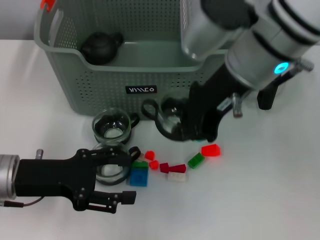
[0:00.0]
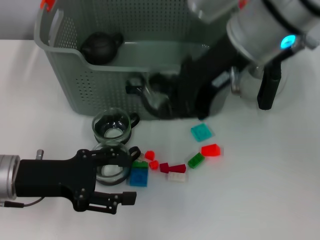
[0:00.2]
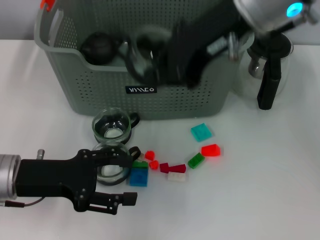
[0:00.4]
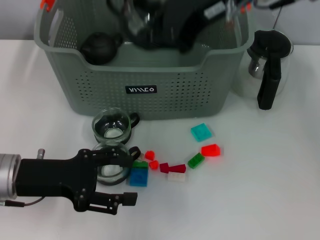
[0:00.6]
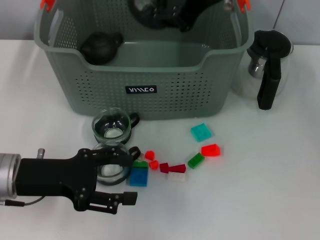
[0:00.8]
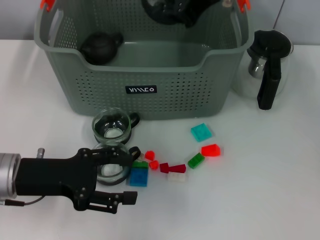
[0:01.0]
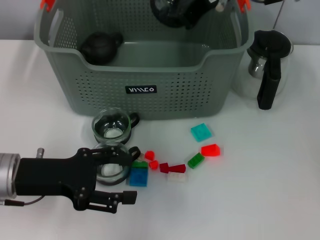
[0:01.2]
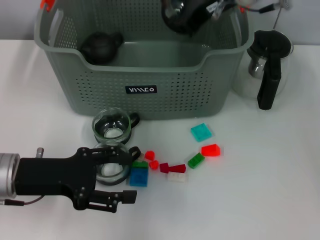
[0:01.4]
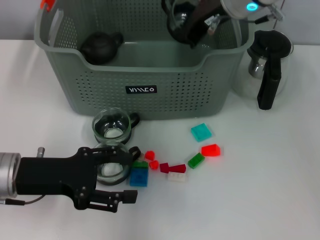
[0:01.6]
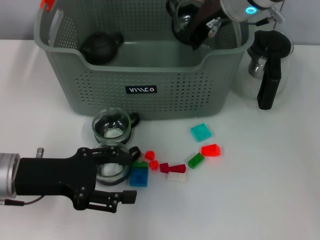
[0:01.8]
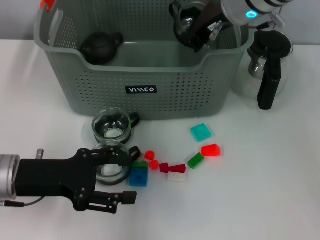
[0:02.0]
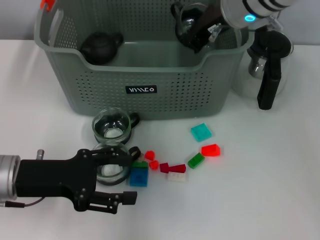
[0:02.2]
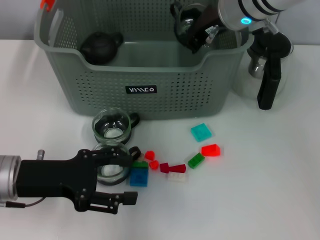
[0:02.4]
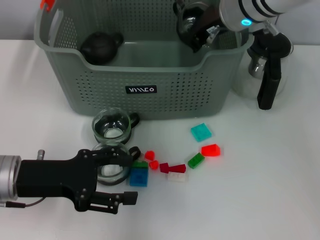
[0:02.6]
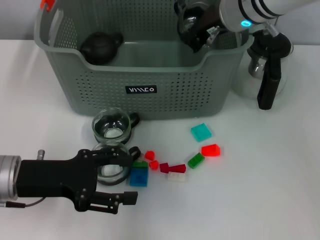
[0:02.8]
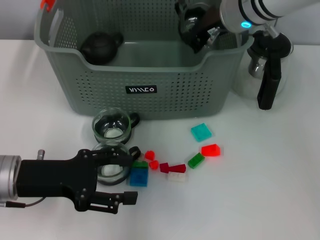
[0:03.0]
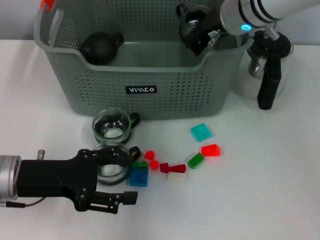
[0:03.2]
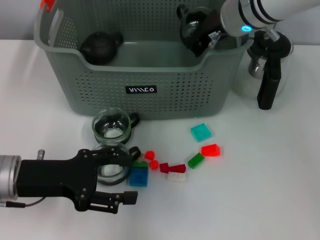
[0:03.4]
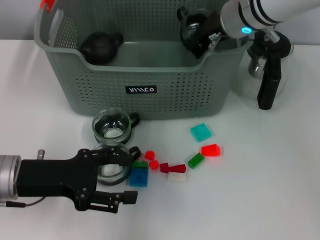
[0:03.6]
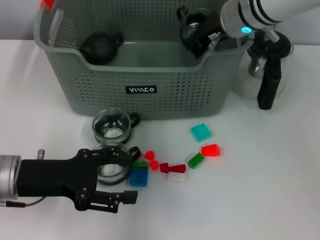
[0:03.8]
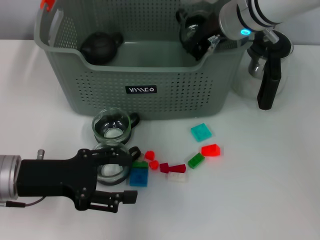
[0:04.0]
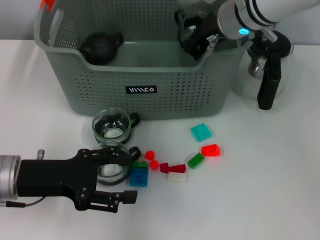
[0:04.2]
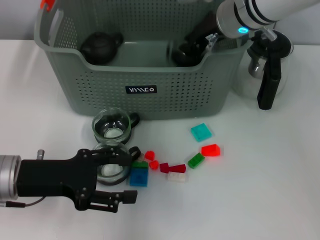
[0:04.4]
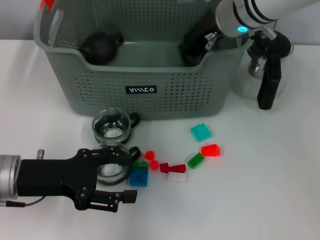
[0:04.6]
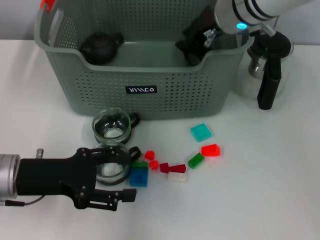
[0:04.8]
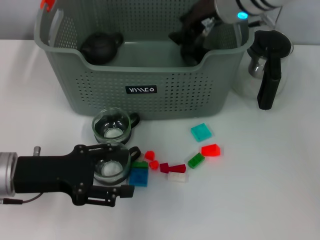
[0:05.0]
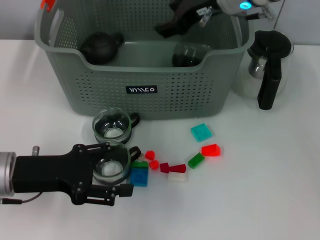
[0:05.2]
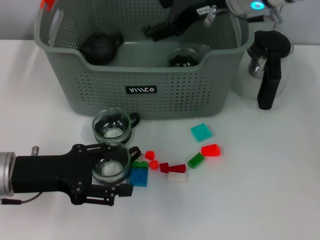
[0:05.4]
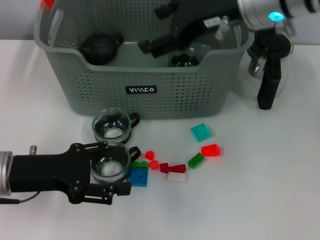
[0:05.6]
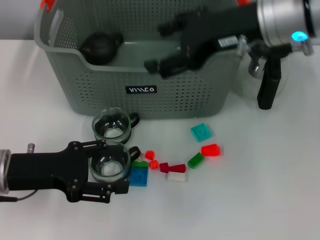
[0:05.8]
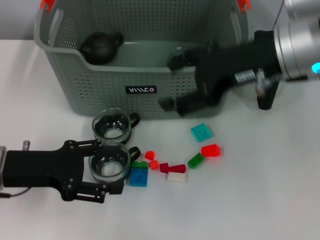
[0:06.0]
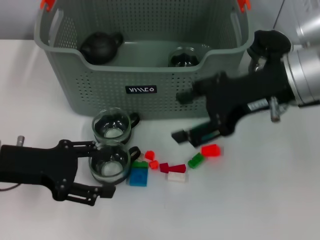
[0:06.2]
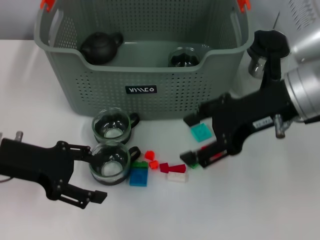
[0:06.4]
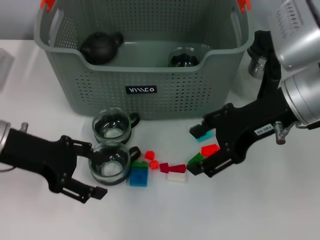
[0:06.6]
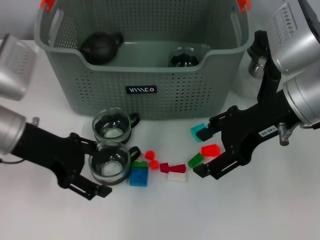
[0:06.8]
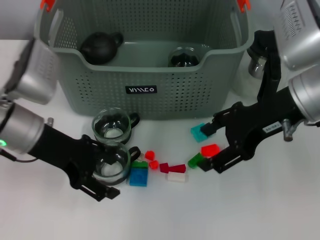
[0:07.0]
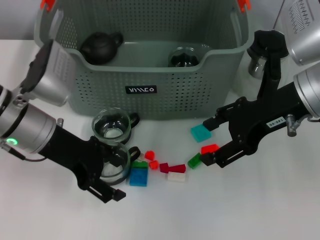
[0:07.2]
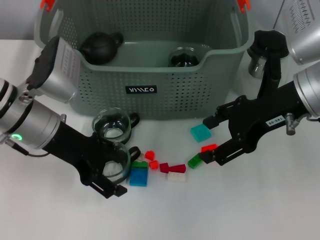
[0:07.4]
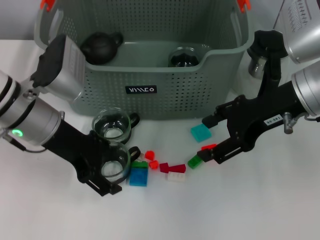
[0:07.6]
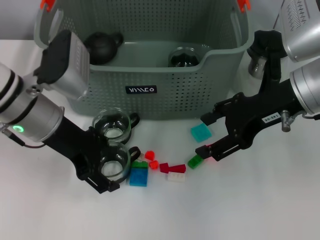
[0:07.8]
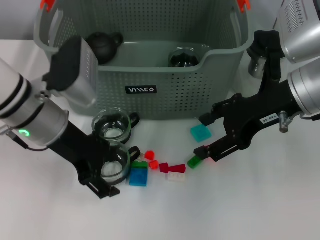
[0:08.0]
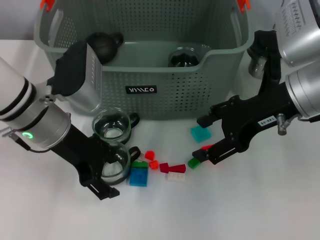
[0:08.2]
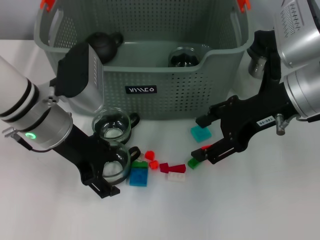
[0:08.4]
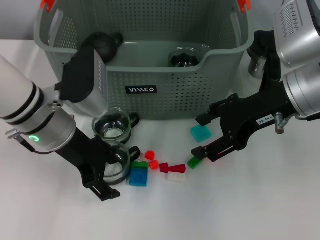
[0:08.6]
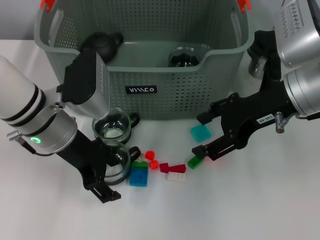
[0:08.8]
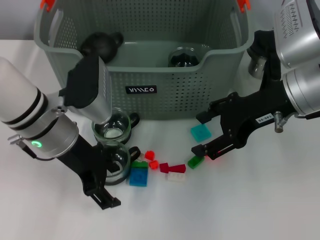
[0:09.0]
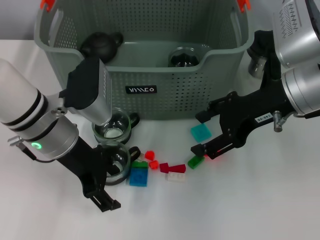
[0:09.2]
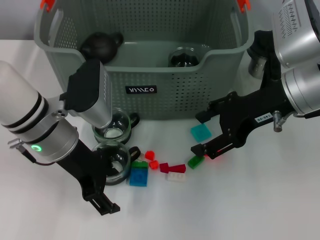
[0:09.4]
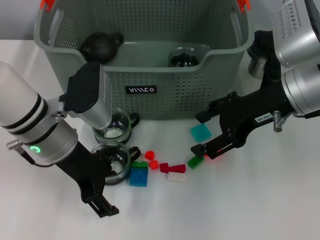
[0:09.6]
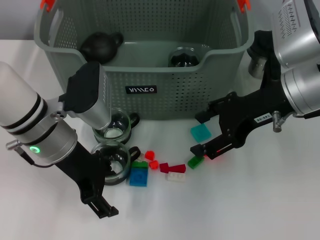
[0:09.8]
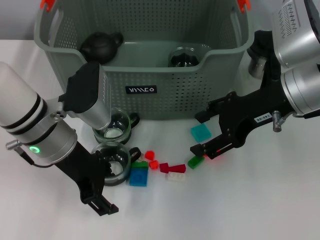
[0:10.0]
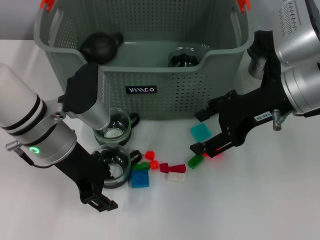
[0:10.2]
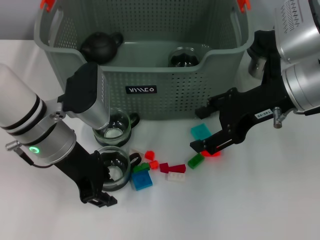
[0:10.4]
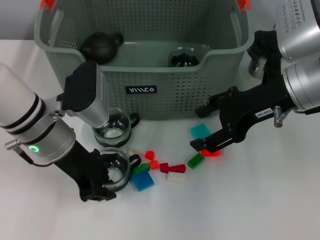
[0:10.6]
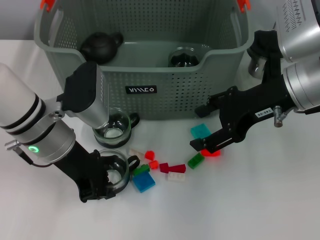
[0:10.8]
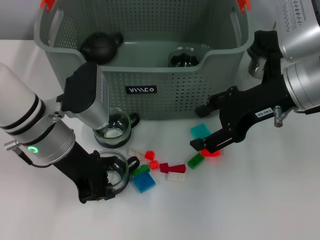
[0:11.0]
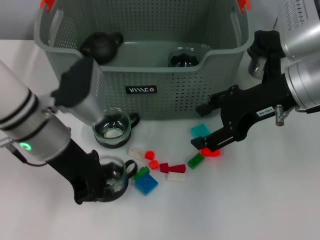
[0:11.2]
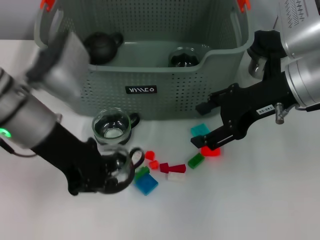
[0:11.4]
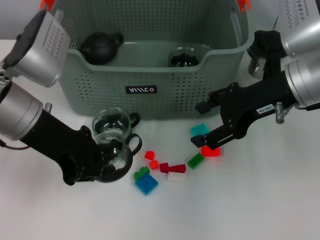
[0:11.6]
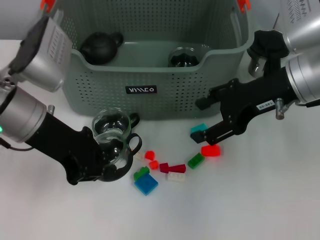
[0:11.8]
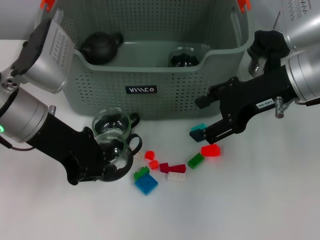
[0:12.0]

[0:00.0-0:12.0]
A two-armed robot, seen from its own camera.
Task of the whole recording: pick up the teacup on the table and place it into the storage bin, pick up the block on the table and place it into the storage bin.
Step, 0:00.0 to 0:05.6: Place the cup in the storage box with right gripper.
Step, 0:05.8 to 0:10.8: Grasp the cup with left gripper.
0:00.0 to 0:01.6: The right gripper moves forward, about 10 cm.
0:01.6 to 0:03.0: The grippers make only small movements.
0:03.0 to 0:04.4: The two grippers keep their place.
0:04.4 to 0:06.0: The right gripper moves backward and to the right, some 10 cm, and opens its fingers.
0:06.0 to 0:07.6: The left gripper is displaced forward and to the right by roughly 10 cm.
0:07.6 to 0:09.0: The grippers make only small movements.
0:09.0 to 0:10.4: Both grippers stay put.
0:10.4 to 0:12.0: The left gripper is displaced upward by some 5 cm, and closes up.

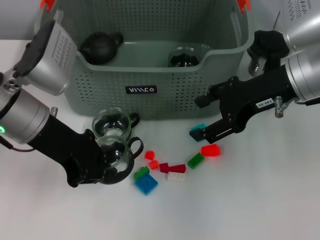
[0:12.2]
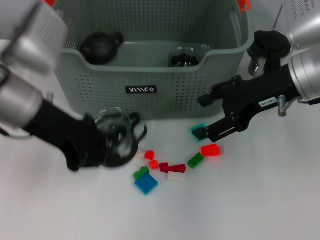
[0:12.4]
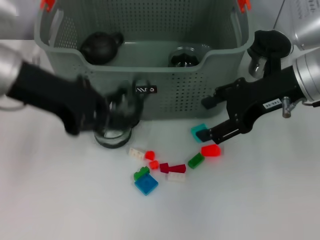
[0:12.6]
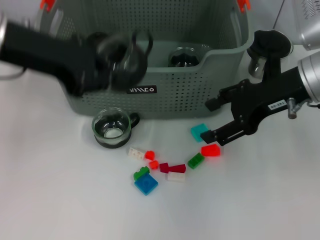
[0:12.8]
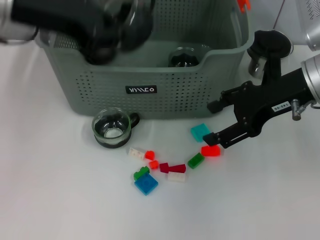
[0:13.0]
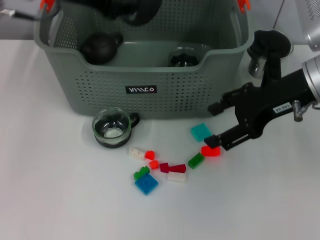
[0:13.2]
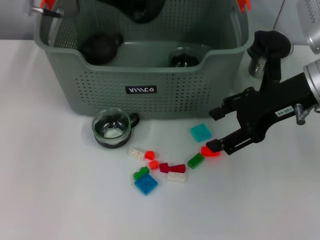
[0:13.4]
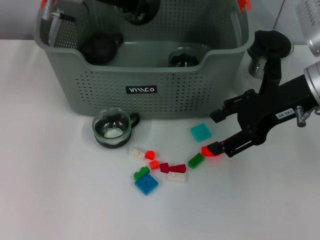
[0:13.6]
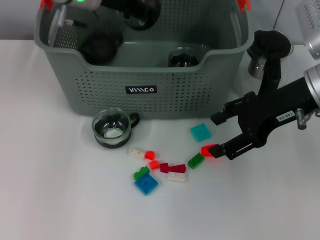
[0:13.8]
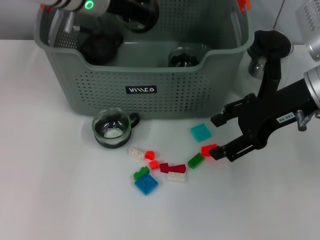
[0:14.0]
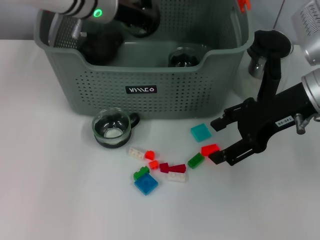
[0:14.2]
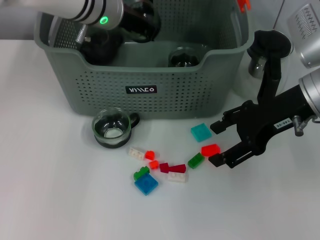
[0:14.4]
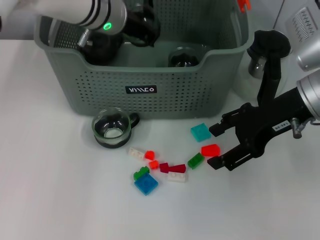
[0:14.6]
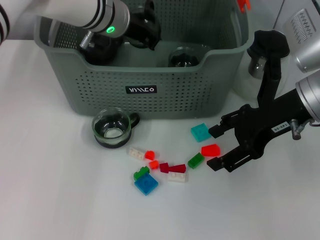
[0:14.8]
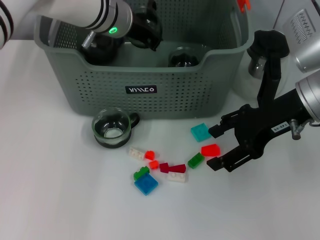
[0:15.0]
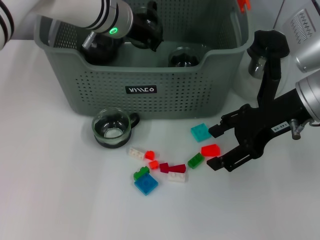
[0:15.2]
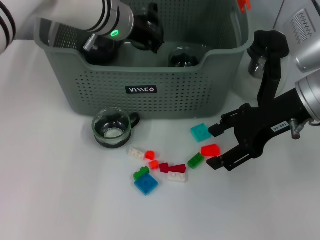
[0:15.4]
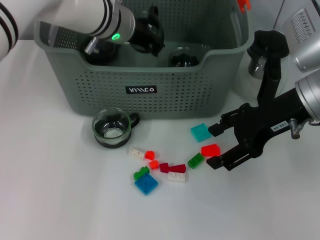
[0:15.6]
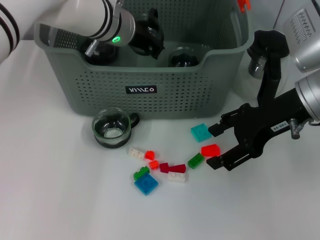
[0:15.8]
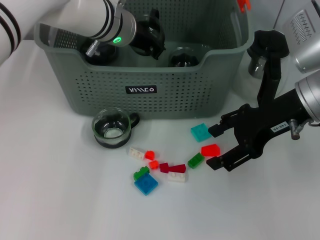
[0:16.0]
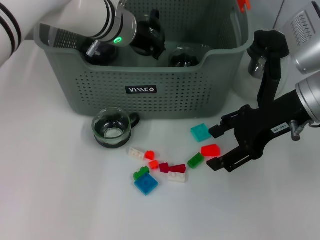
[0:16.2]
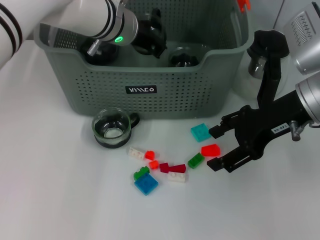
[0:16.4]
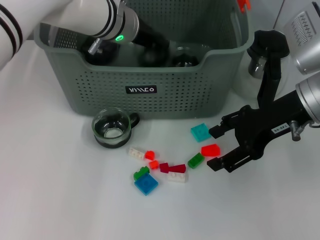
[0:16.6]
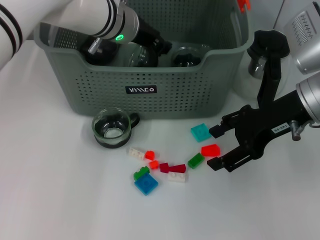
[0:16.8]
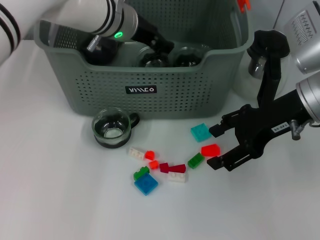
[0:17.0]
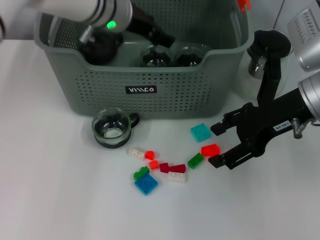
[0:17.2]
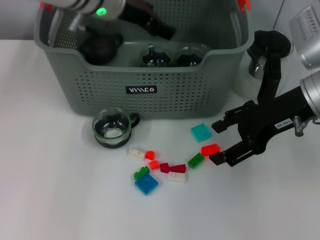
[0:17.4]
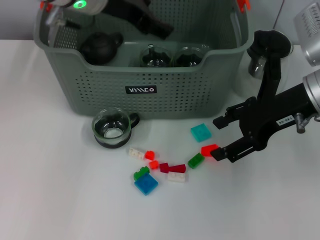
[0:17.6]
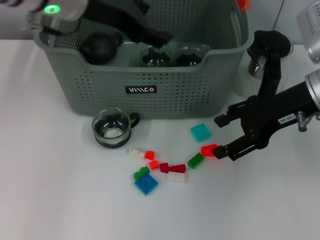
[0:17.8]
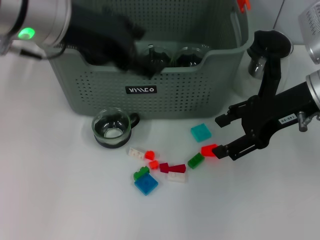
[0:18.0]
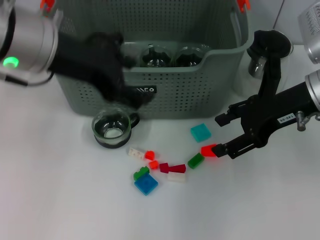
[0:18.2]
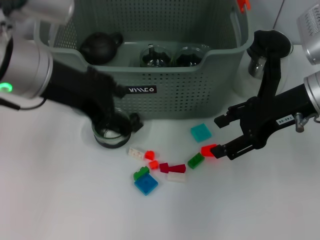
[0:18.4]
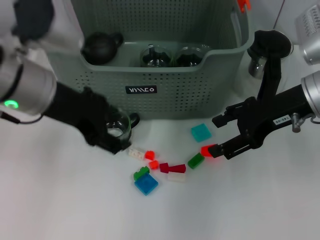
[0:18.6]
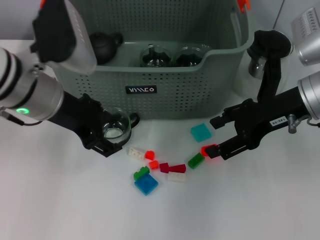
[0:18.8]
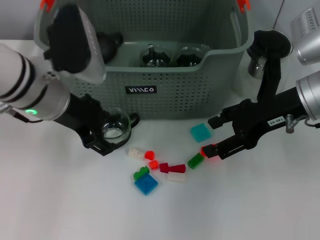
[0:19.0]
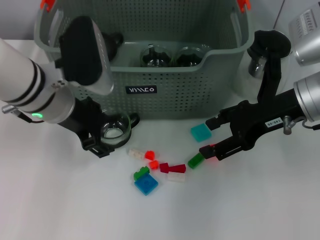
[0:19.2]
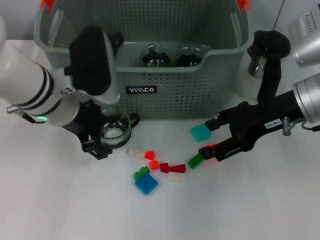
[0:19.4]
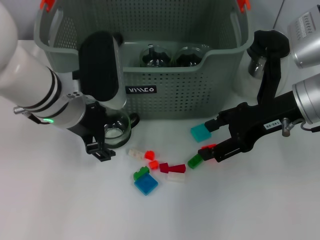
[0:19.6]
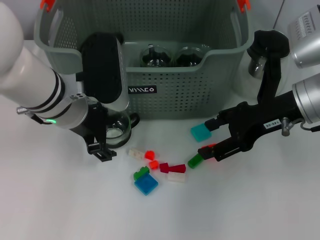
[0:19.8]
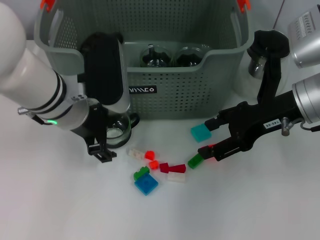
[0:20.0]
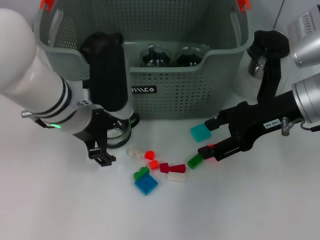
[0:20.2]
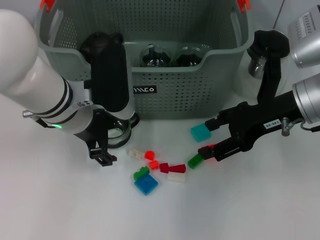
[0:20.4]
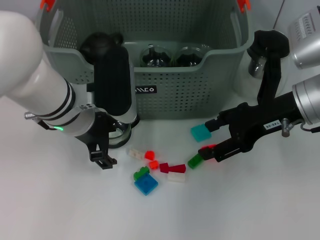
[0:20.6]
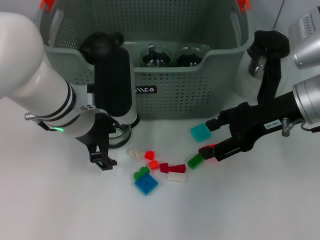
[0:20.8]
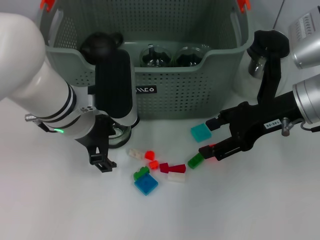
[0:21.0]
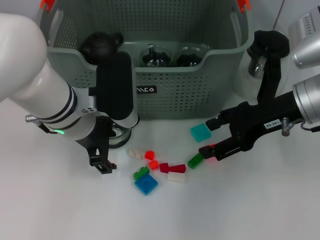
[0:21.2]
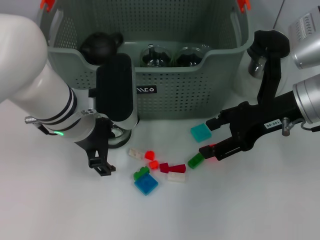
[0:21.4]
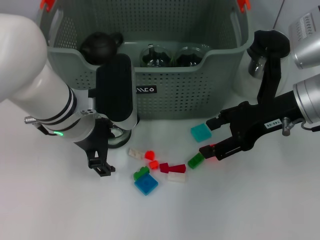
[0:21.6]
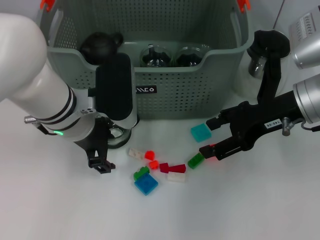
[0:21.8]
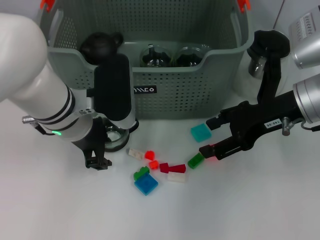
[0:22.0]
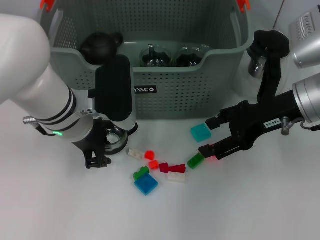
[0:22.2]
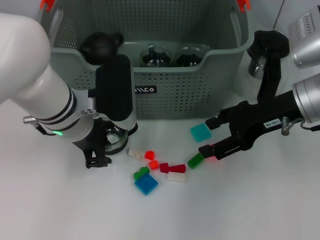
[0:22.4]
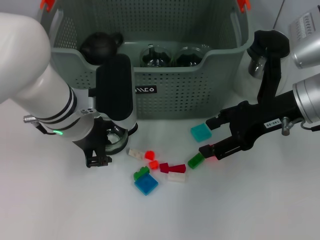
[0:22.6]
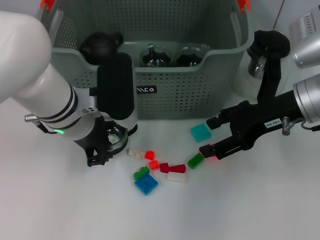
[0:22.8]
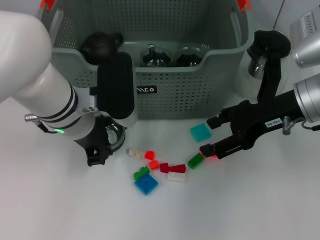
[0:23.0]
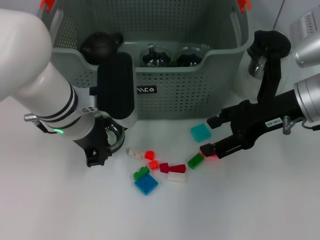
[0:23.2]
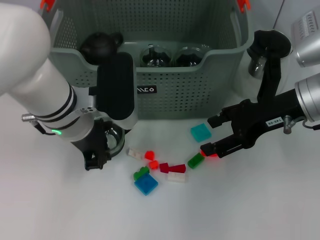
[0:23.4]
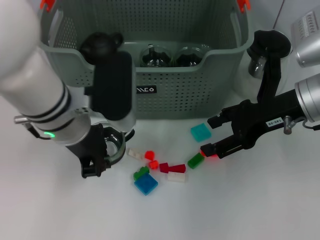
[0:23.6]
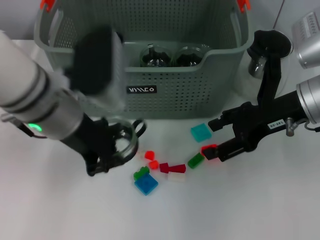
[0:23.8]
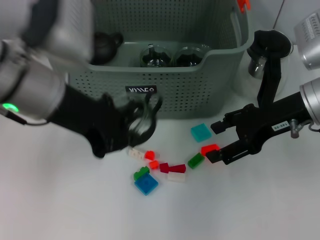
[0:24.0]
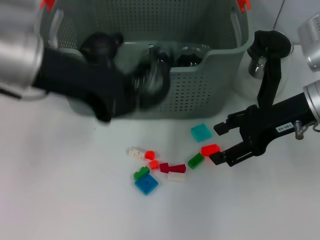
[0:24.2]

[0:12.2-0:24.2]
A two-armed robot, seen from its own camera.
Task of the whole recording: pick up the teacup on the table and place it into the storage bin, pick up the block on the table and place it into the storage bin.
Step, 0:12.2 to 0:17.2: Place the cup in the storage box with left gripper.
Step, 0:17.4 to 0:23.0: Grasp the cup with left gripper.
0:12.2 to 0:13.8: The left gripper heads forward, covering some 15 cm.
0:13.8 to 0:15.2: The left gripper changes place by some 5 cm.
0:15.2 to 0:16.6: Both grippers stay about where they are.
0:16.6 to 0:18.2: The left gripper is displaced backward, upward and to the left by some 20 cm, and opens.
0:18.2 to 0:19.8: The left gripper heads downward, covering about 10 cm.
0:19.8 to 0:21.2: There are only small adjustments of the grippers.
0:21.2 to 0:22.6: The left gripper closes.
0:22.6 to 0:24.2: The left gripper moves upward, about 15 cm.
